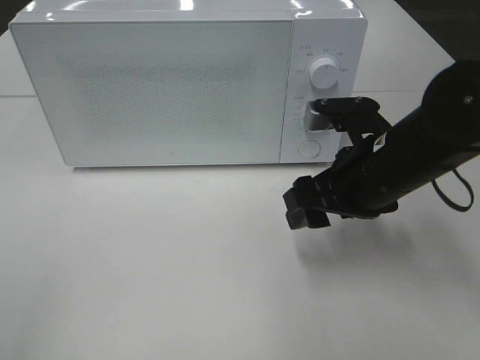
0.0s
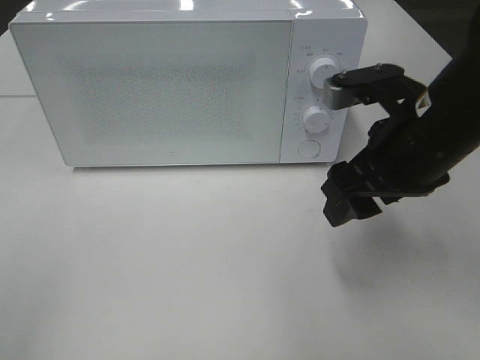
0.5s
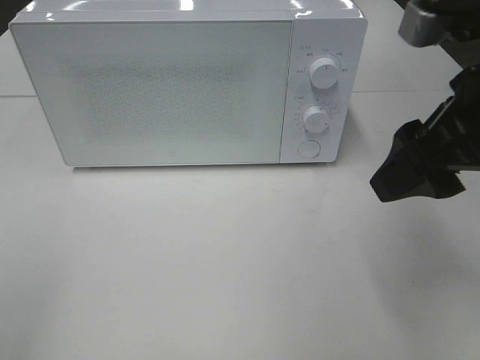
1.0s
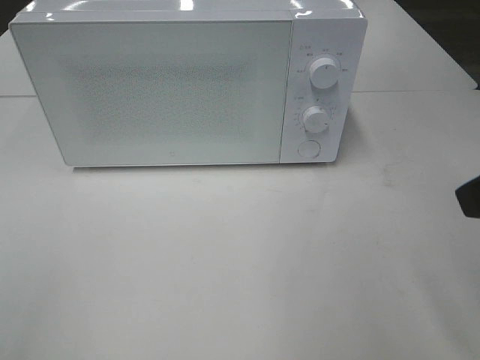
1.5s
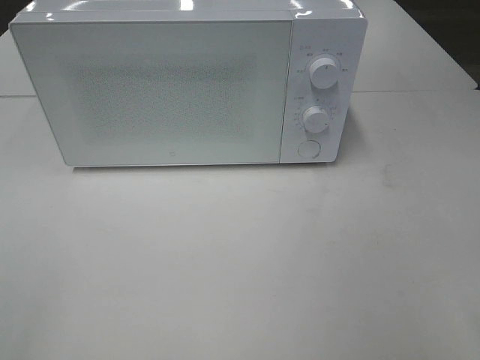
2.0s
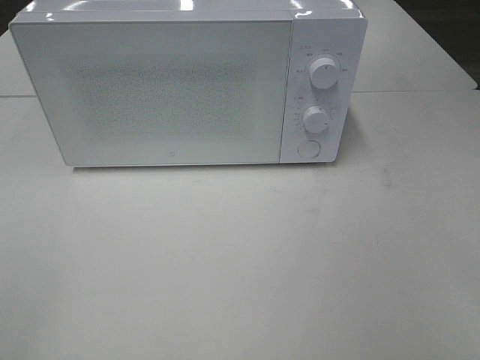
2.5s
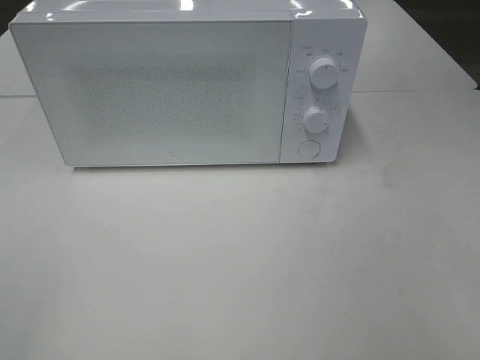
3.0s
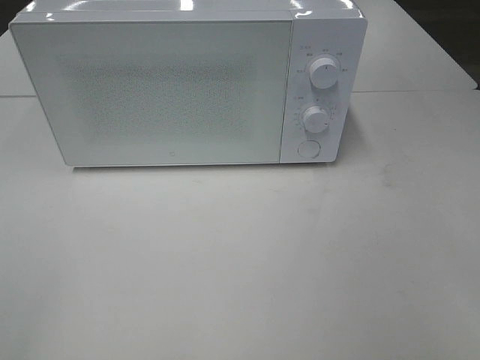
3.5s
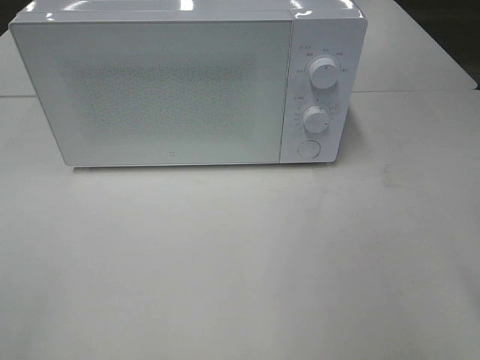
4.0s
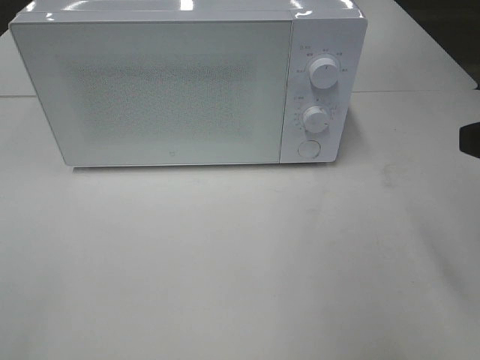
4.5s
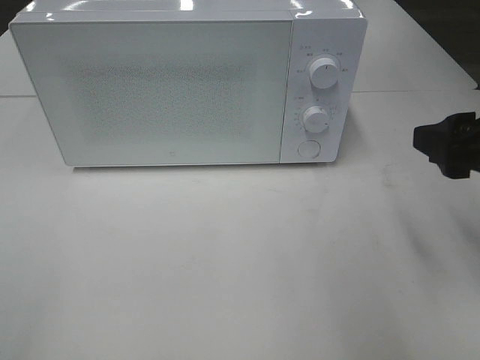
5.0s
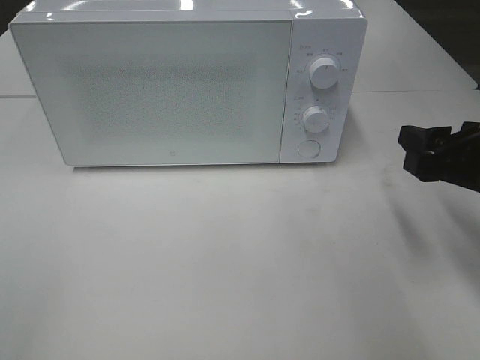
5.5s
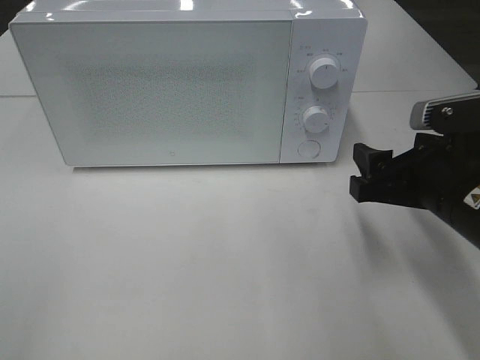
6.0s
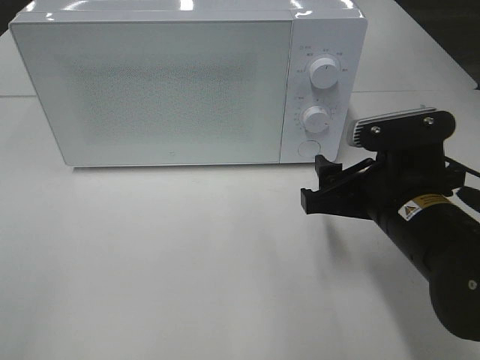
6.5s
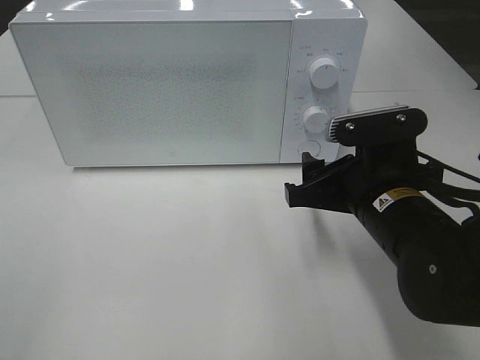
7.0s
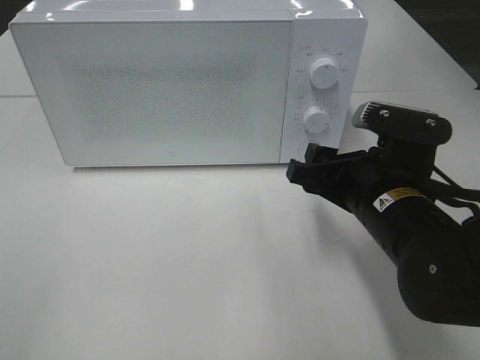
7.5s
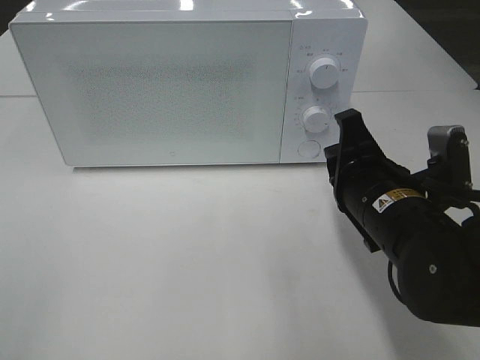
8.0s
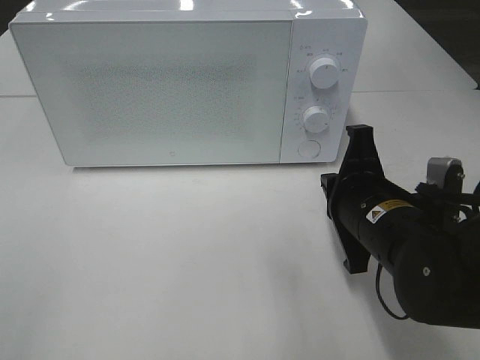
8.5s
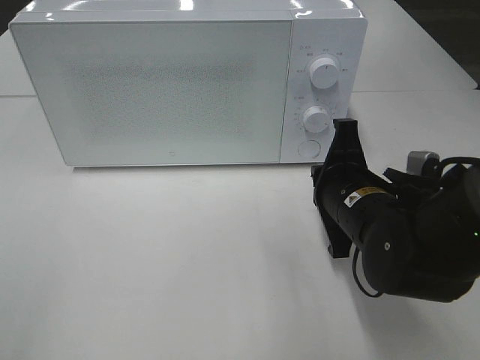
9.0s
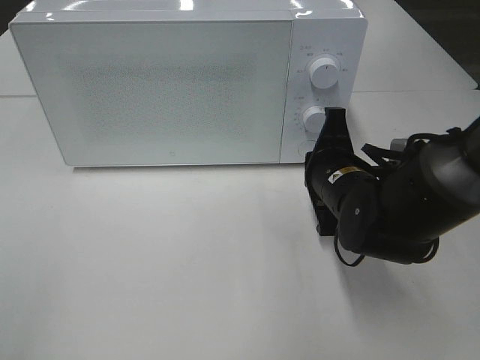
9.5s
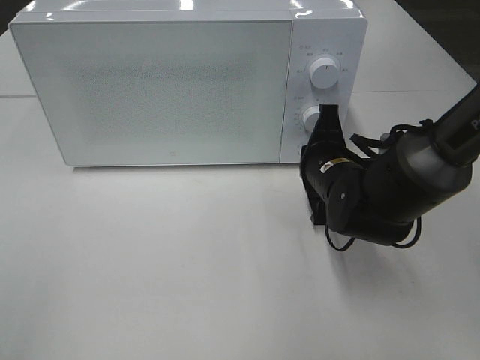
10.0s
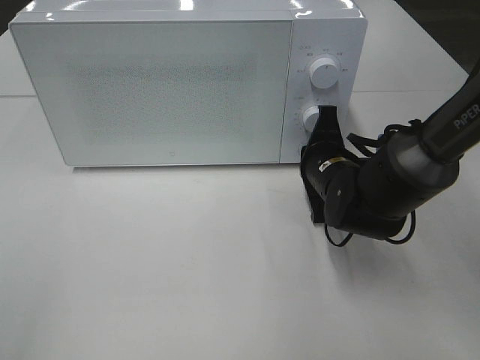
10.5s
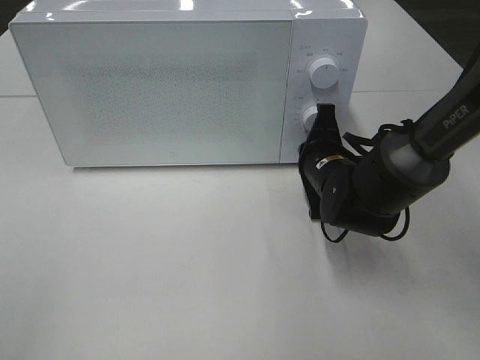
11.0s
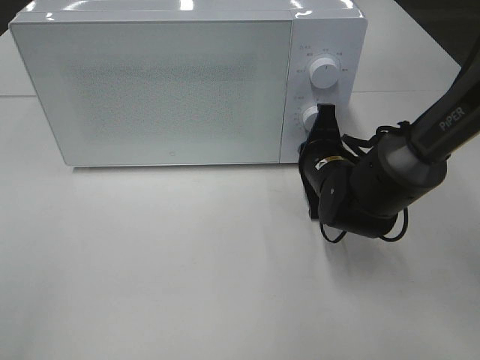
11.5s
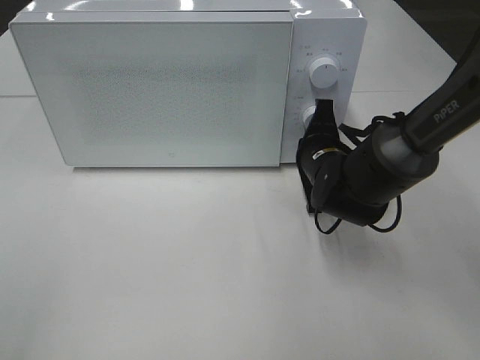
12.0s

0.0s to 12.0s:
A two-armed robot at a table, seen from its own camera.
Task of the whole recording: Heat the burger.
0.0s to 2.0s: The right gripper travels backward, to the right and upward by roughly 25 cm.
4.0s to 6.0s: The right gripper heads downward, forward and to the left, covering roughly 20 cm.
6.0s to 8.0s: The right gripper shifts some 5 cm to the left, and closes its fingers.
8.0s to 10.0s: The right gripper shifts approximately 10 cm forward.
10.0s to 12.0s: The grippers make only small movements.

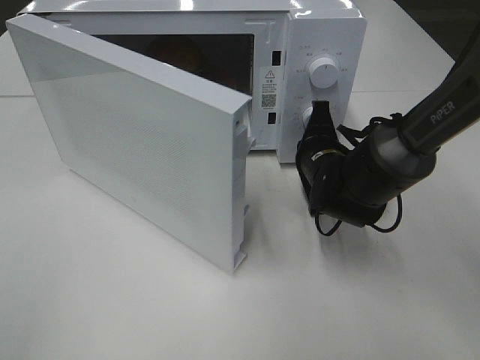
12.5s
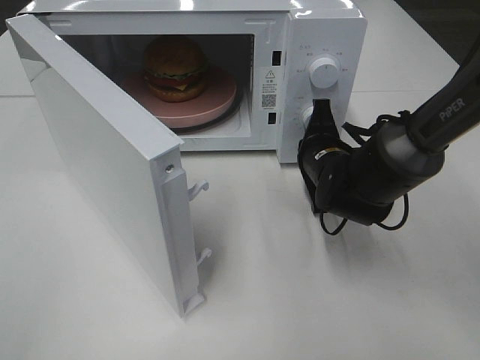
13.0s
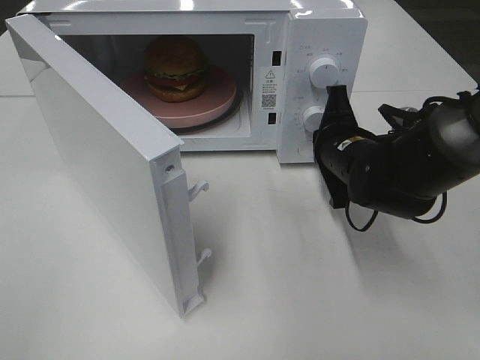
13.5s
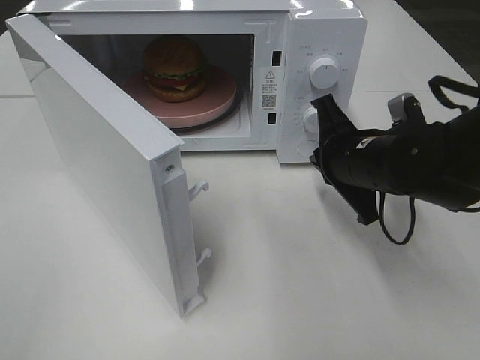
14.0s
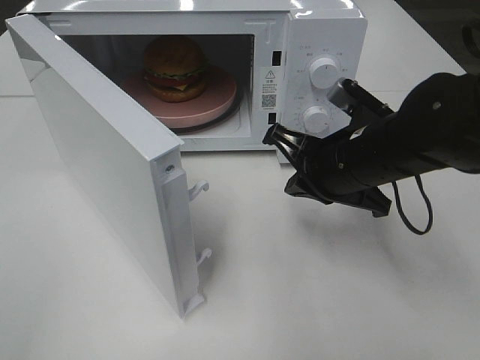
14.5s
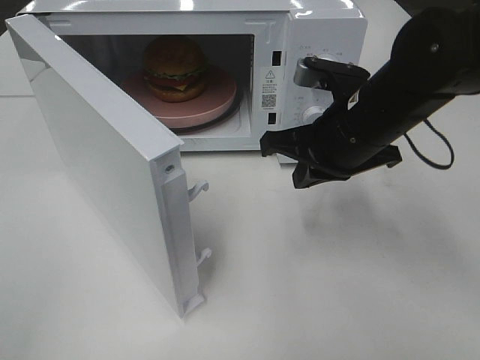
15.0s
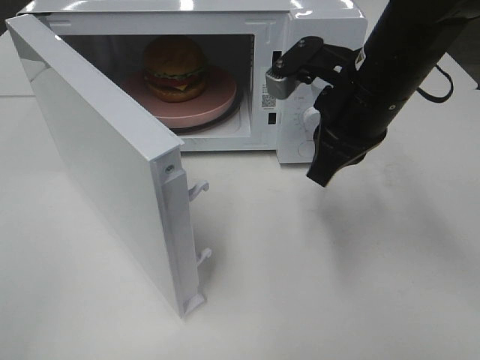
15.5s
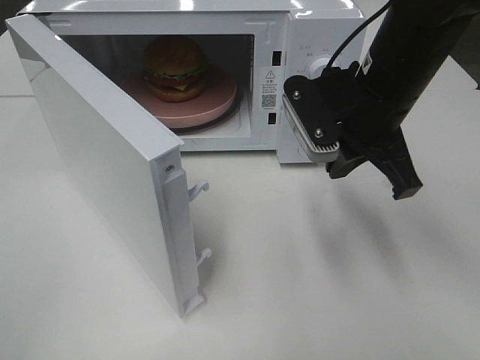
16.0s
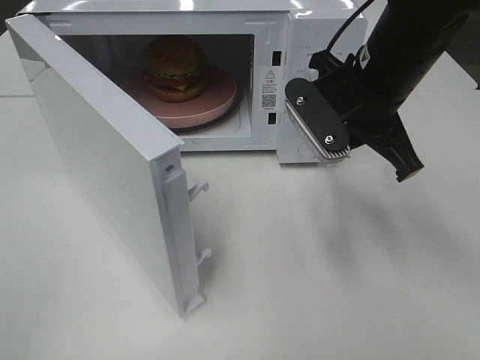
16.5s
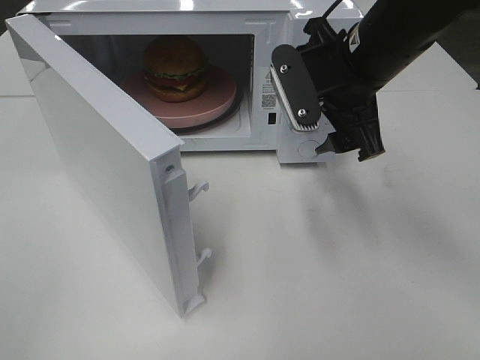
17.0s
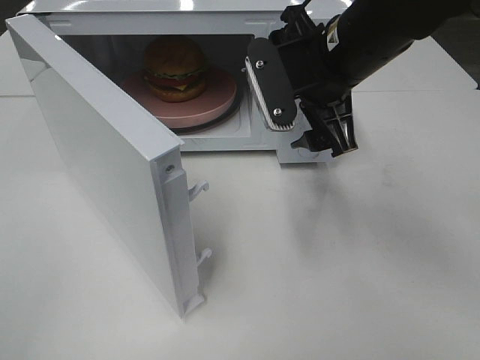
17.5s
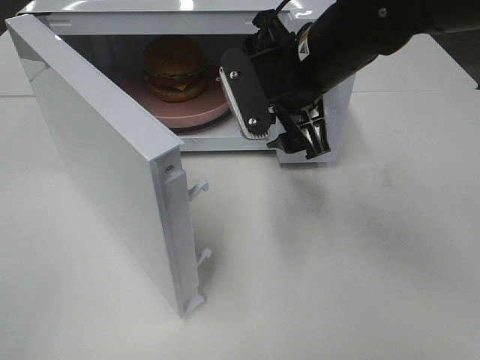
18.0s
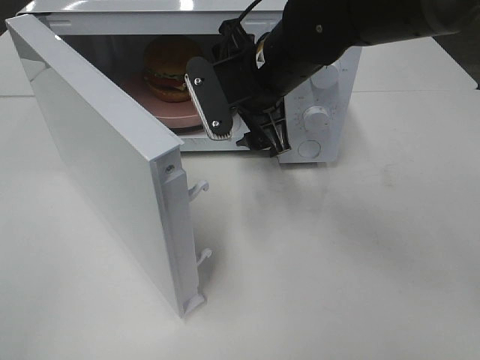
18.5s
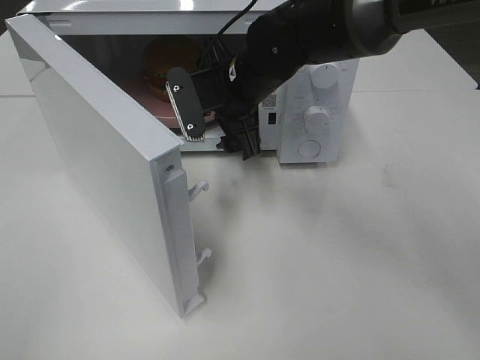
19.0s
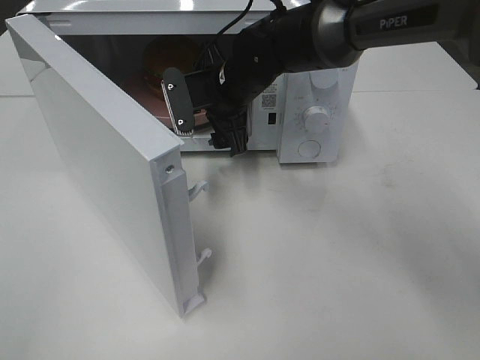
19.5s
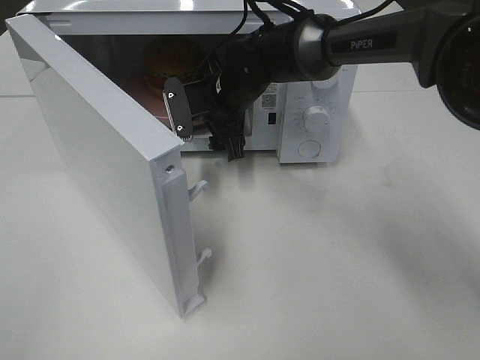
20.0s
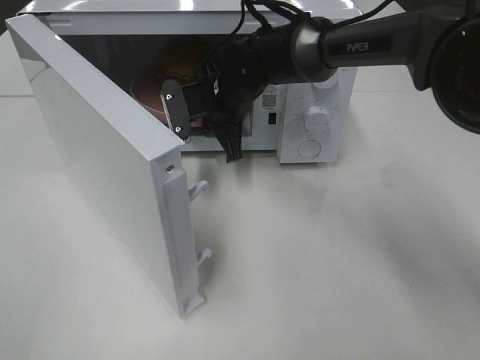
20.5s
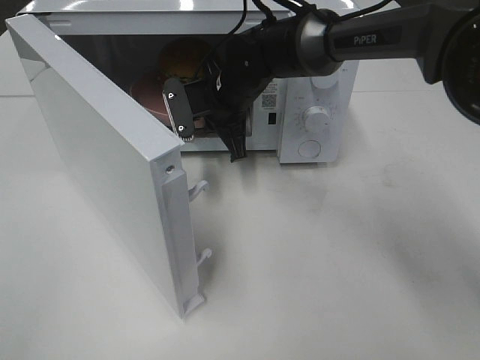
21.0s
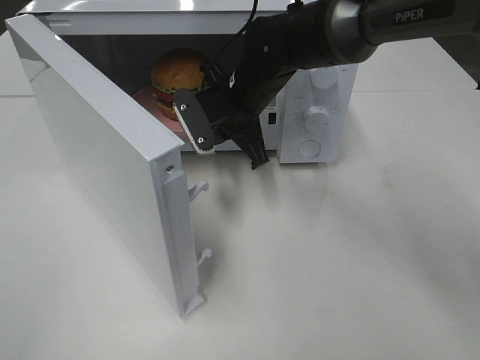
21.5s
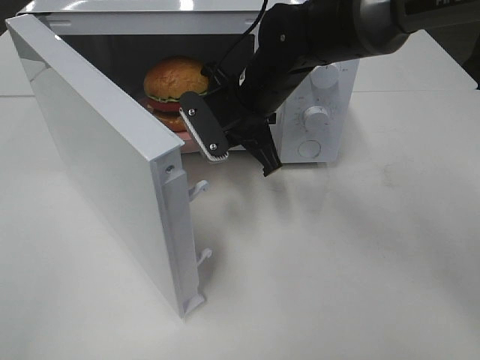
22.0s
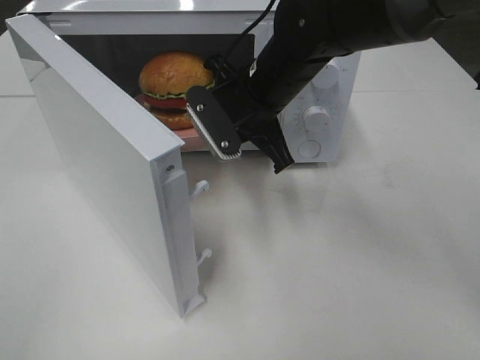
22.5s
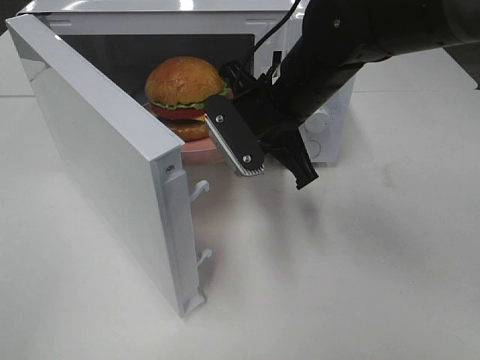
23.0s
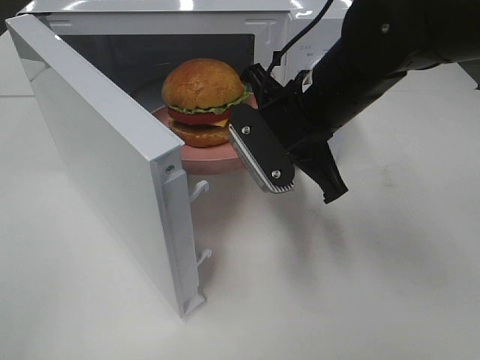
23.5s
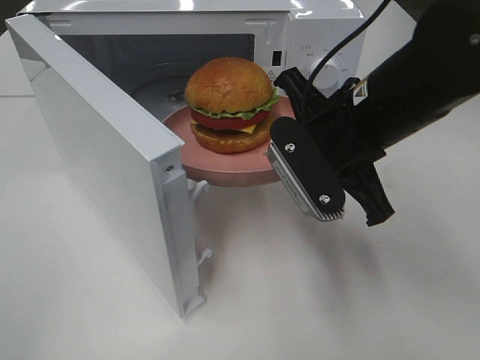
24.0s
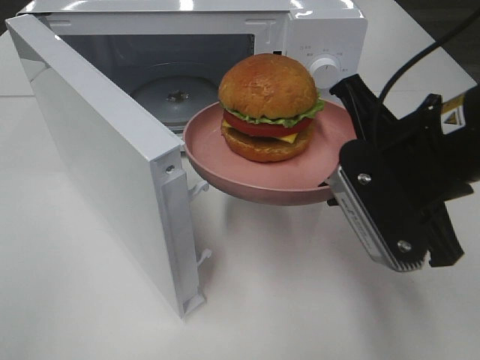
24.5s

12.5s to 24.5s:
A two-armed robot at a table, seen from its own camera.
Task of the whole recording: Heat the burger.
Step, 13.5s to 20.5s: Right hand: grab the plate with the hamburger.
12.5s to 14.5s: The right gripper shifts about 10 cm upward and backward.
14.5s to 16.5s: The right gripper heads upward, covering some 5 cm.
16.5s to 18.5s: The right gripper shifts roughly 10 cm to the left, and opens.
18.5s to 20.5s: The right gripper heads forward and downward, covering approximately 10 cm, and closes.
20.5s to 22.5s: The right gripper goes approximately 10 cm backward and upward.
22.5s to 24.5s: The right gripper travels backward and to the right by roughly 20 cm.

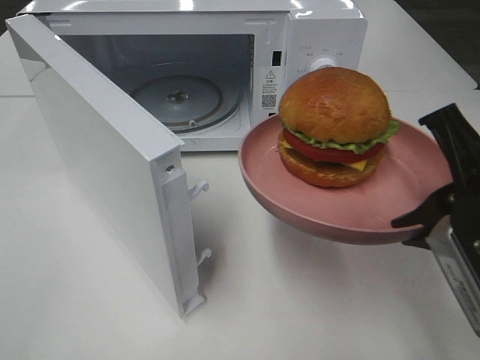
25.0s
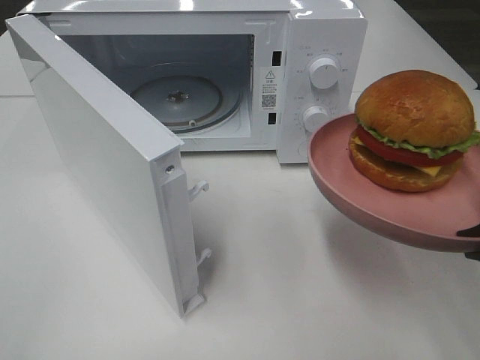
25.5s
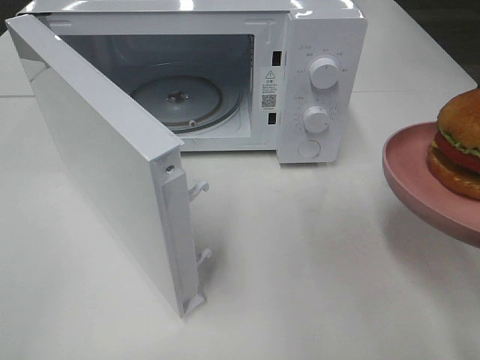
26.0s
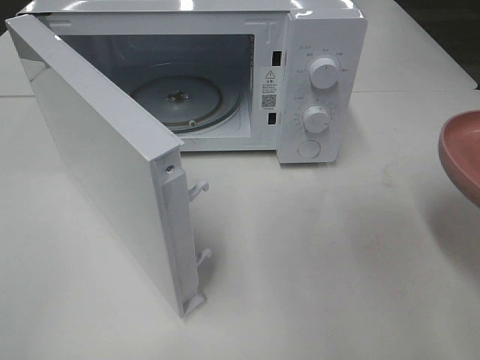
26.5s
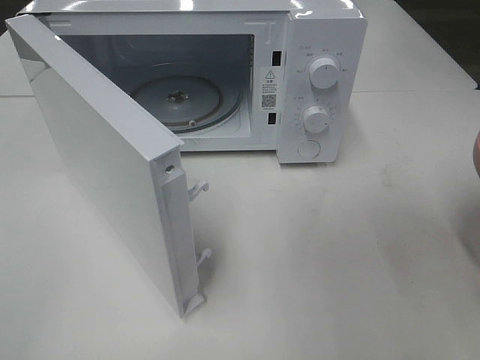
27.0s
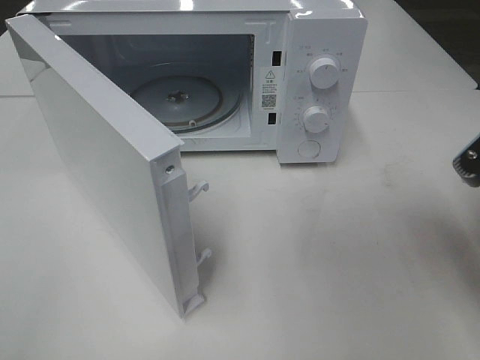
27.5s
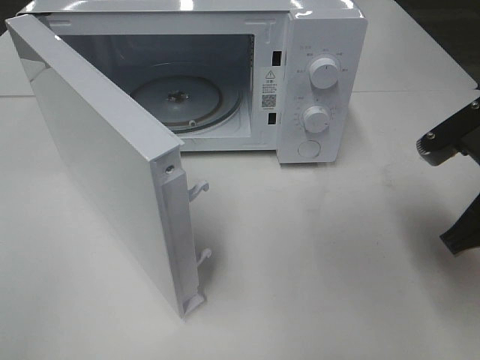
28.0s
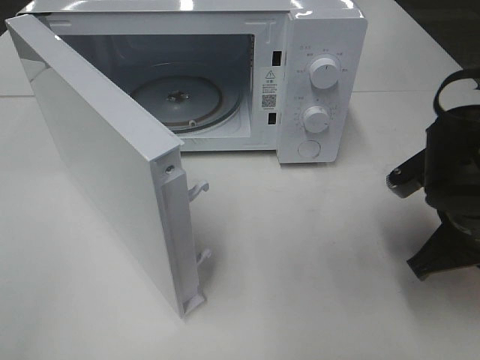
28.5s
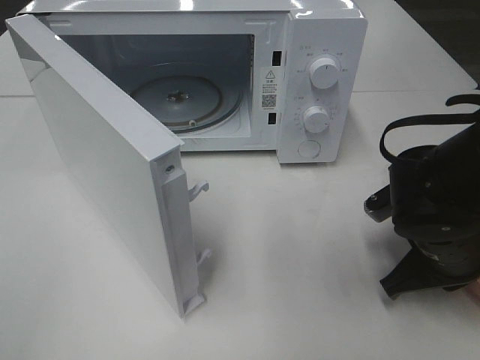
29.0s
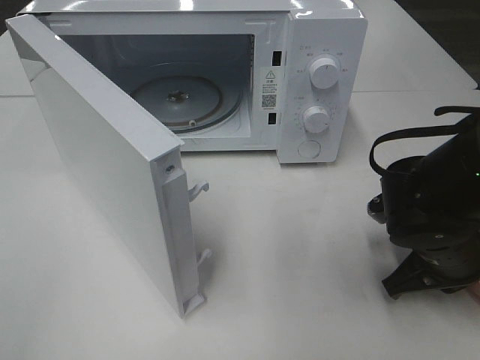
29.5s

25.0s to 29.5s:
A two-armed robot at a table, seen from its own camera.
Task of the whole recording: Heat the burger.
25.0s to 27.0s: The right gripper goes approximately 5 cm to the right.
27.0s to 29.5s: The right gripper travels downward, forward and to the left by roughly 15 cm.
